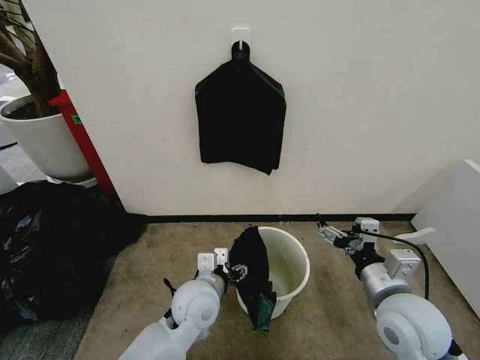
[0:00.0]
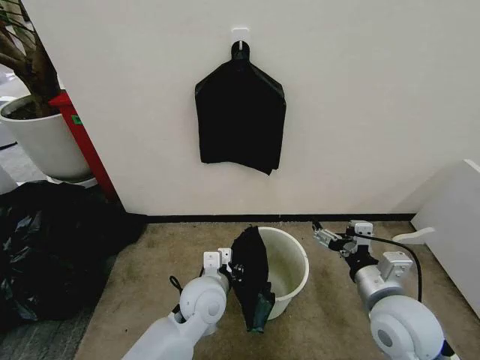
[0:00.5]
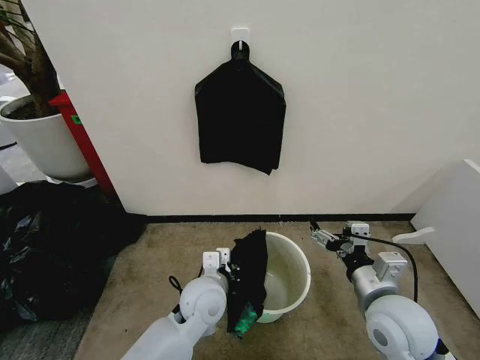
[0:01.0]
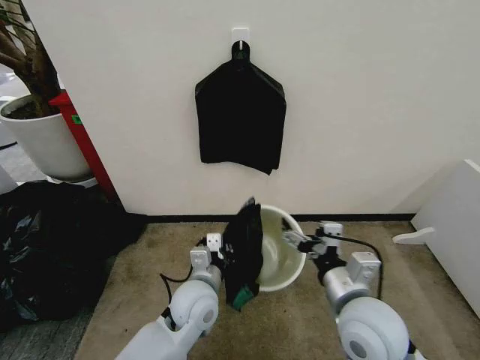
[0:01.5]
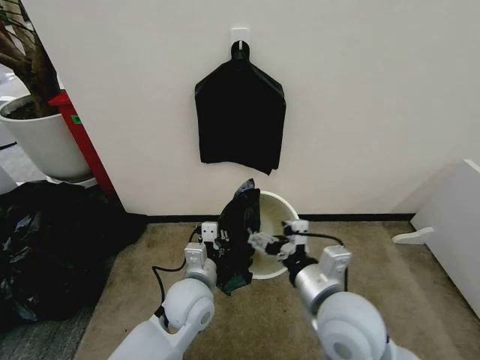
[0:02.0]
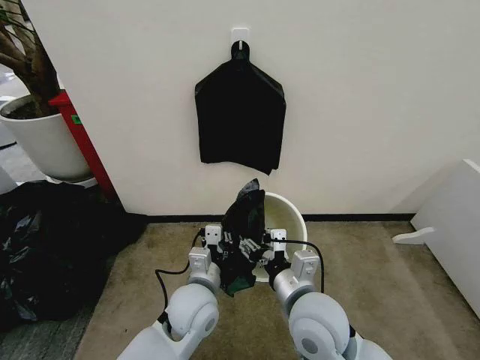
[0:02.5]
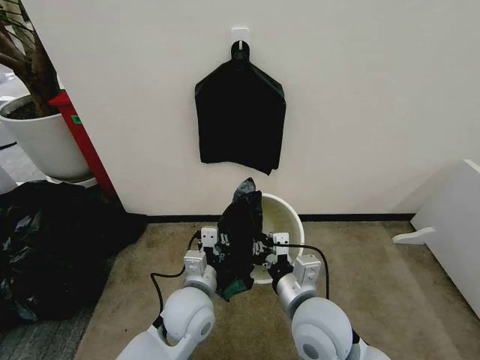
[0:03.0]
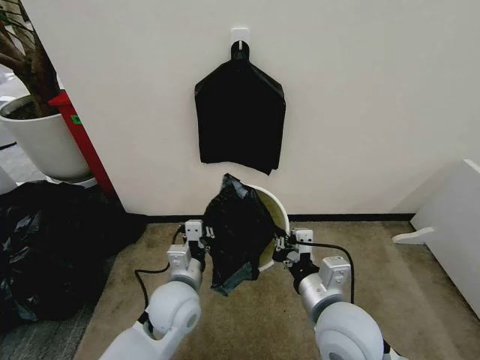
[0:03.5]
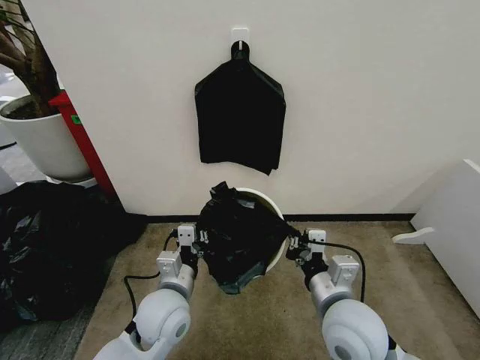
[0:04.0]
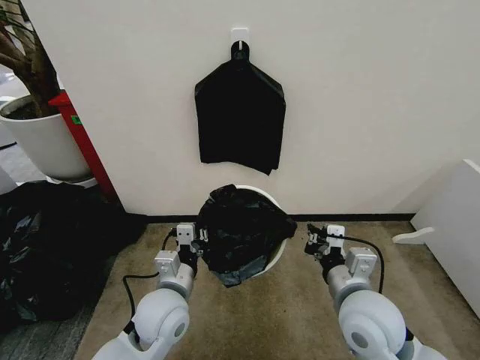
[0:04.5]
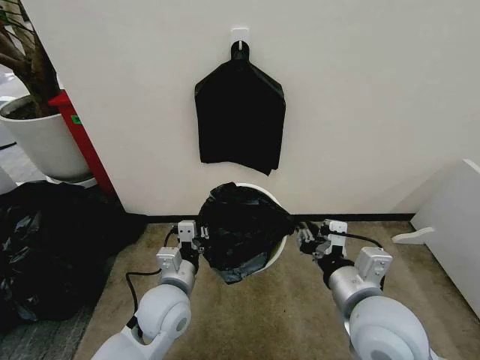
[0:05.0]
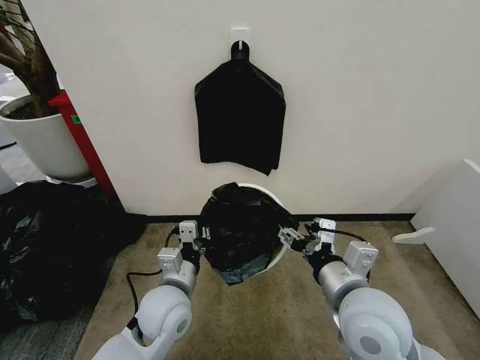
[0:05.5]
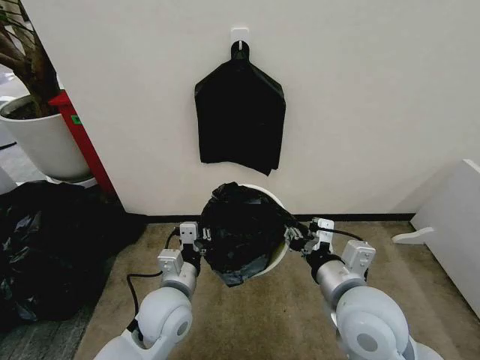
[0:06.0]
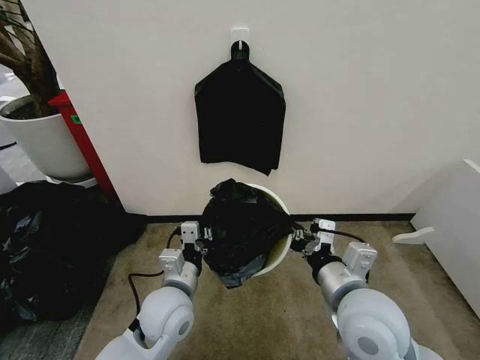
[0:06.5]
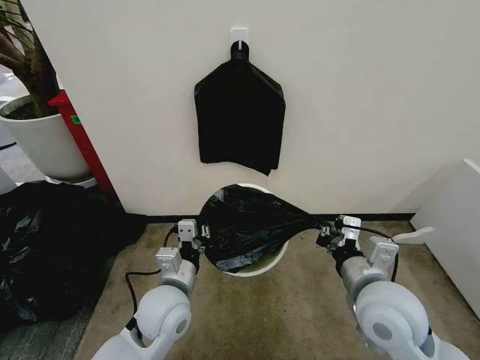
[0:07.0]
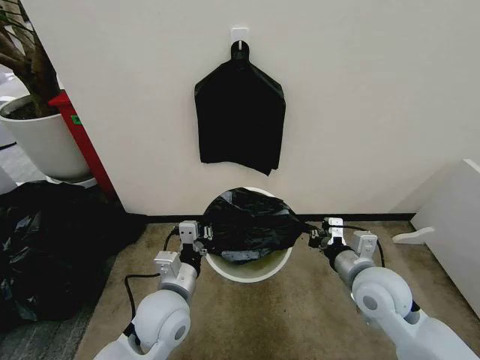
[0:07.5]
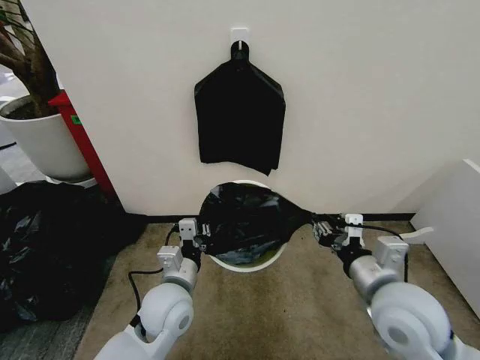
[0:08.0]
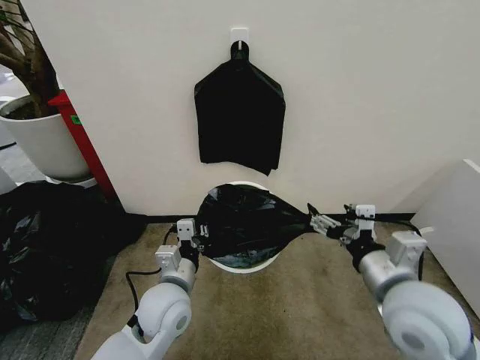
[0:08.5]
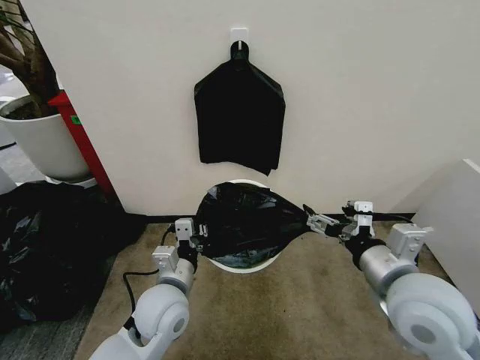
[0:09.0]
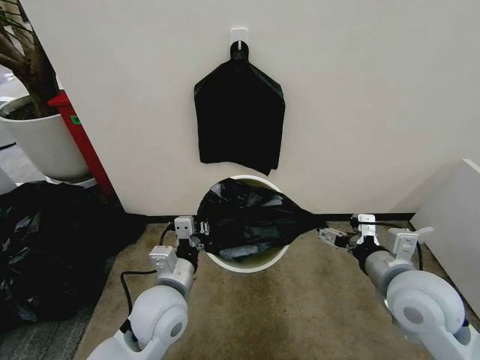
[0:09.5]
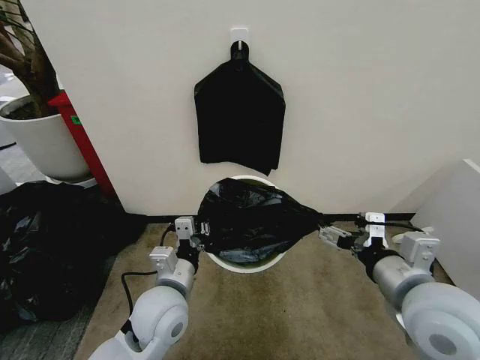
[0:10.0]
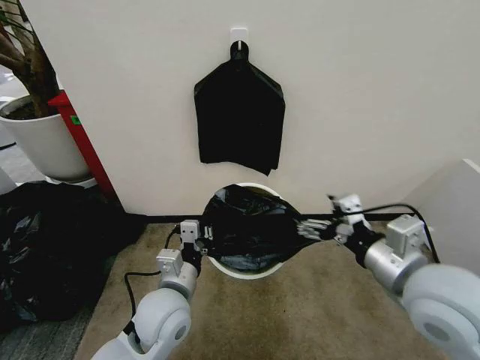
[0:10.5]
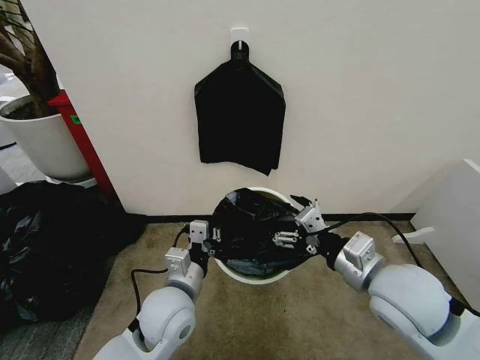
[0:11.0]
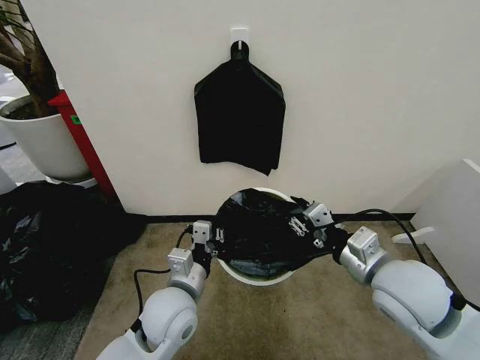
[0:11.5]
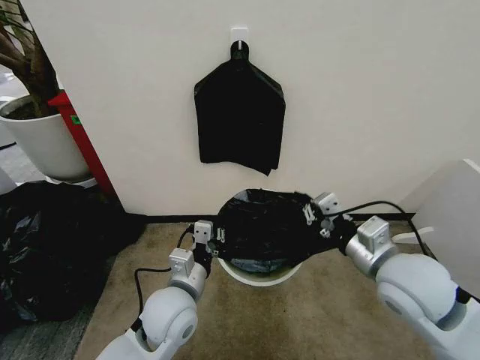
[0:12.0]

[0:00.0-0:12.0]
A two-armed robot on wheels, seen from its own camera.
Task of the whole recording: Place the garbage bag over the trash bin.
0:00.0 to 0:02.0: The left gripper closes its fingers, while the right gripper is displaced to the left by roughly 10 cm.
0:02.0 to 0:04.0: The right gripper closes up. Meanwhile the left gripper shifts by roughly 5 cm.
0:04.0 to 0:06.0: The right gripper opens, then closes once more.
0:06.0 to 0:08.0: The right gripper heads to the right, covering approximately 5 cm.
0:08.0 to 0:10.0: The right gripper moves up and down over some 5 cm, changing direction 2 times, and opens its fingers.
0:10.0 to 0:12.0: The right gripper shifts about 5 cm forward, and closes its fingers.

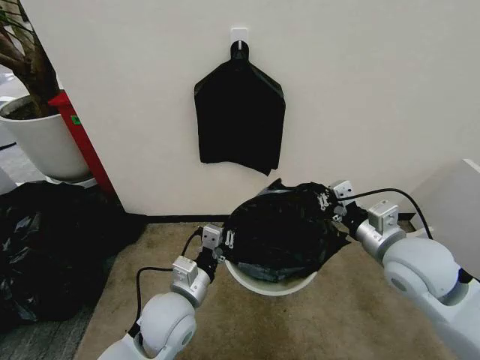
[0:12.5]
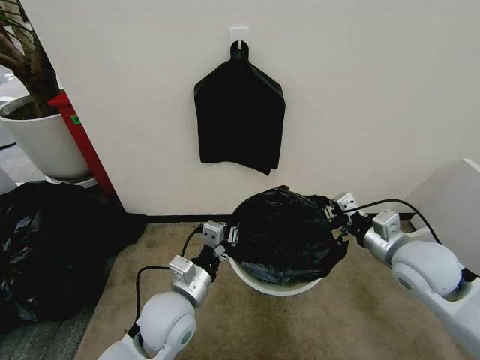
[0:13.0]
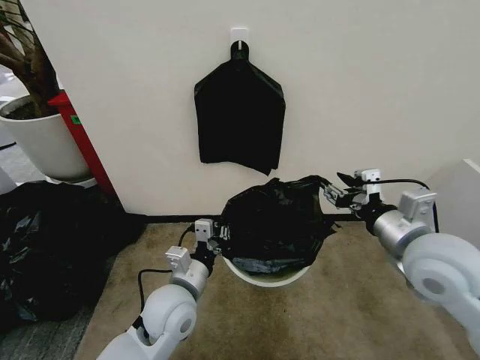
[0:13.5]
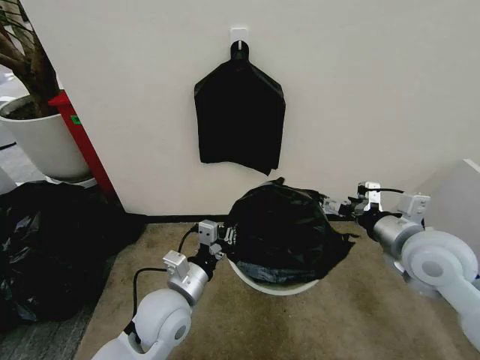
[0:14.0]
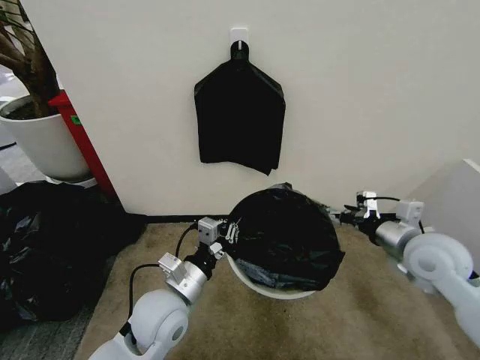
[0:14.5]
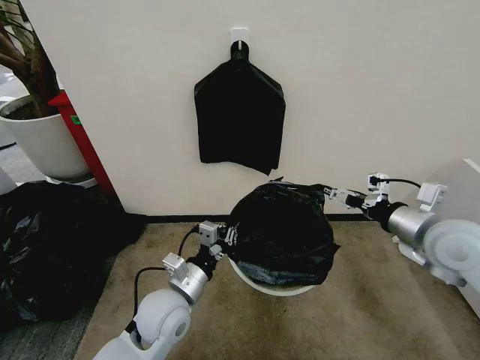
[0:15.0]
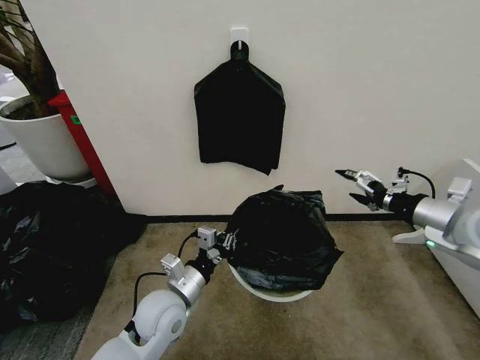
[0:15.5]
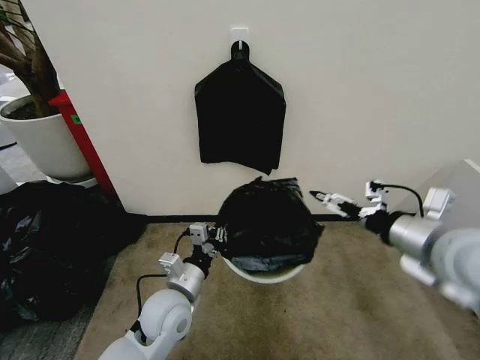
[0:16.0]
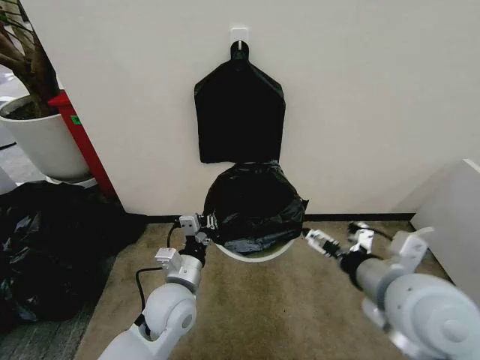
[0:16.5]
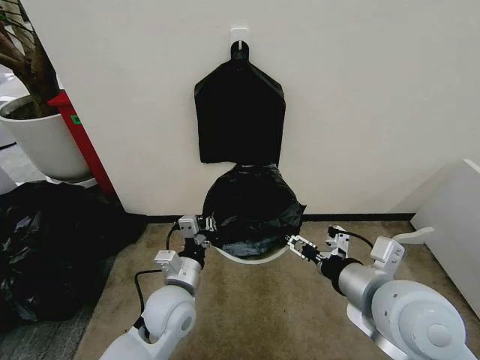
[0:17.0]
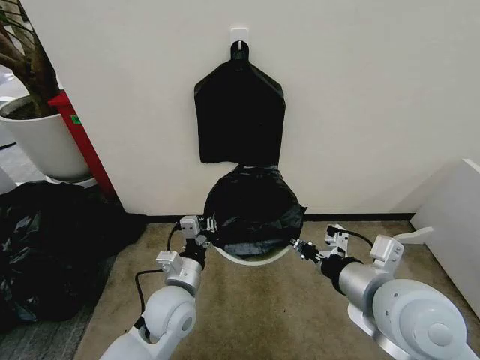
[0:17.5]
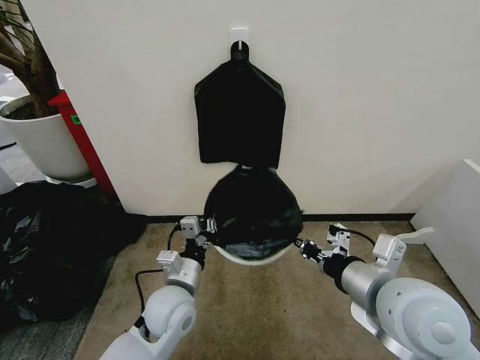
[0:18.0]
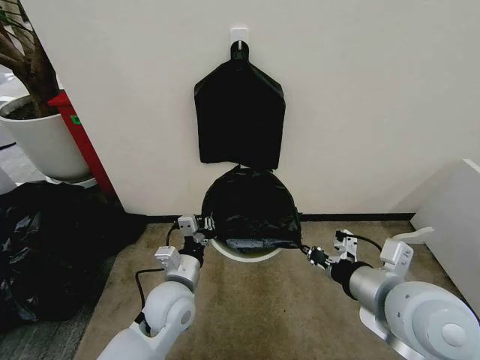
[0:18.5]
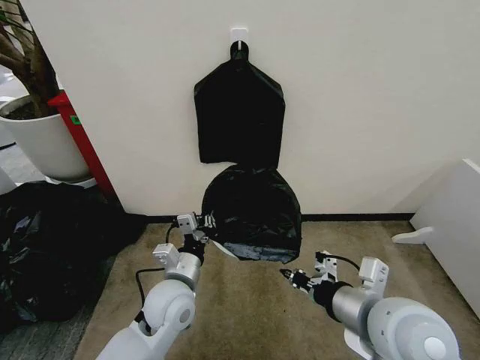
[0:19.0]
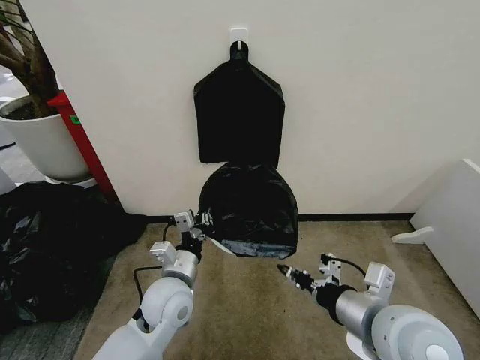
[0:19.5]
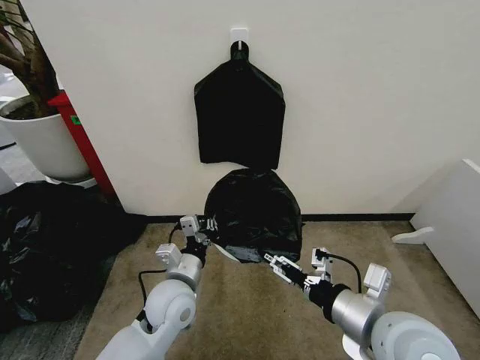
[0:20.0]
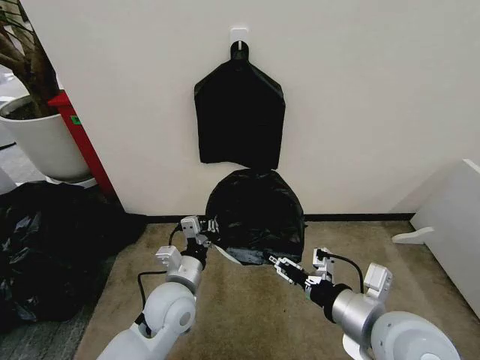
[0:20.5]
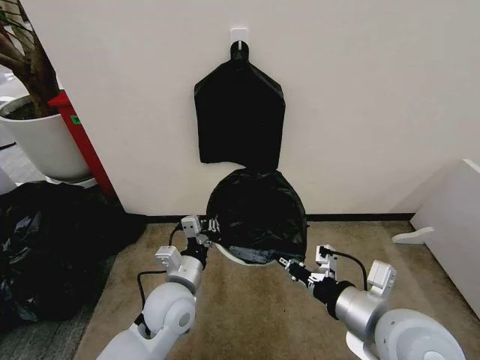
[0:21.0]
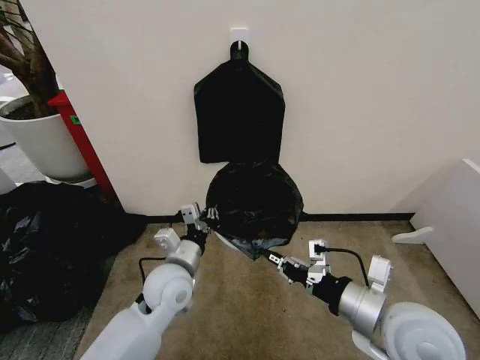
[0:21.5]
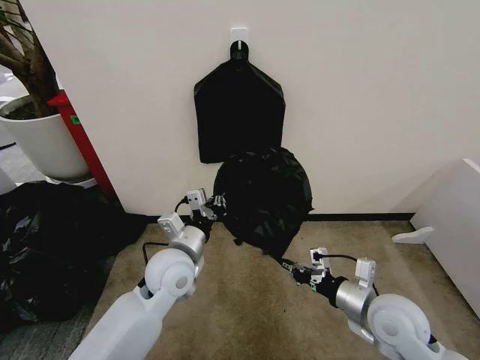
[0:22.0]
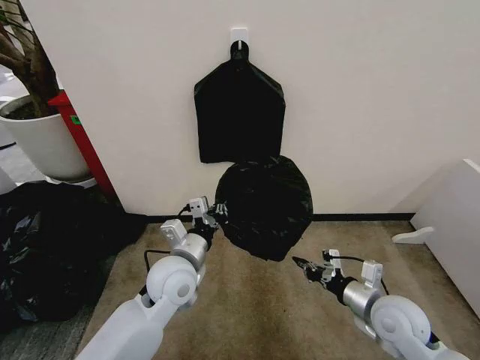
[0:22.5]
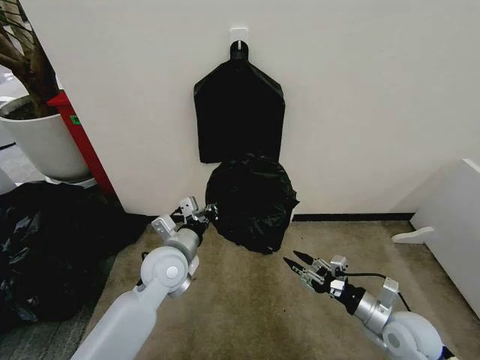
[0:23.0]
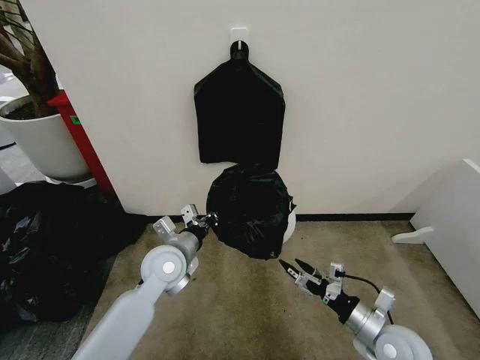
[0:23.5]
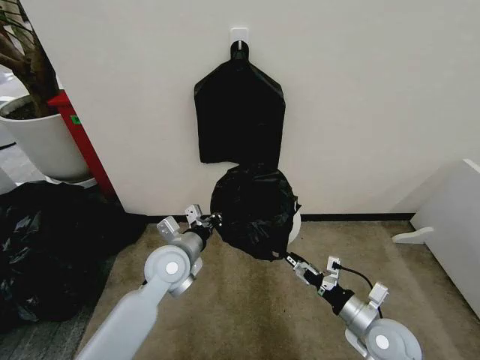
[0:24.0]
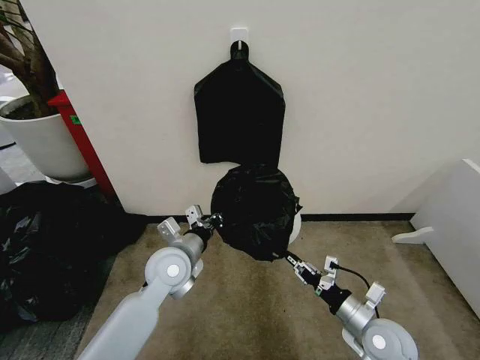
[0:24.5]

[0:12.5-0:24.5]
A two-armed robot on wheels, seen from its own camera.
Task of the whole recording: Place the garbage bag over the trash bin.
0:12.5 to 0:14.5: The right gripper swings up and down, about 10 cm each way, with 2 reversals, and opens its fingers.
0:14.5 to 0:16.5: The right gripper shifts approximately 15 cm to the left, backward and upward.
0:16.5 to 0:18.5: The right gripper closes.
0:18.5 to 0:20.5: The right gripper opens up.
0:20.5 to 0:22.5: The right gripper goes about 15 cm downward, to the right and forward, and closes up. Meanwhile the left gripper shifts by some 5 cm.
0:22.5 to 0:24.5: The right gripper moves downward, approximately 5 cm, and opens, then closes again.

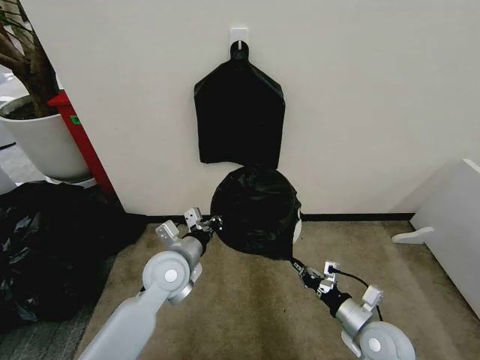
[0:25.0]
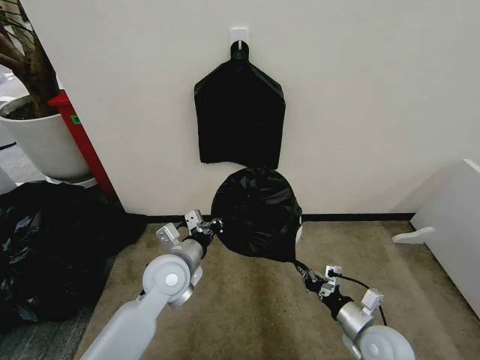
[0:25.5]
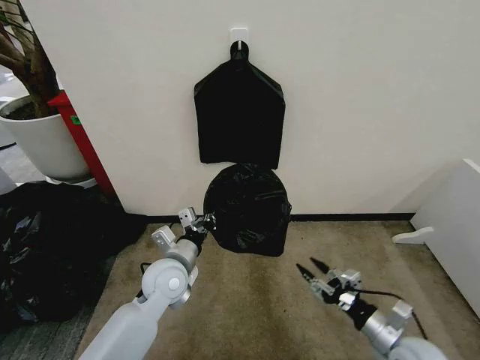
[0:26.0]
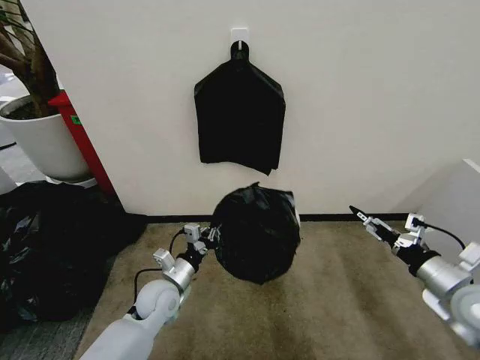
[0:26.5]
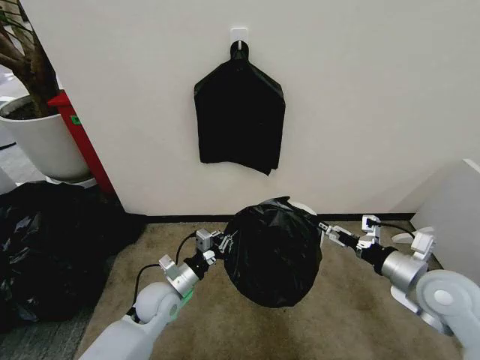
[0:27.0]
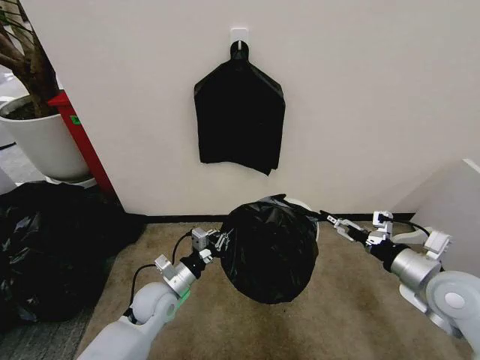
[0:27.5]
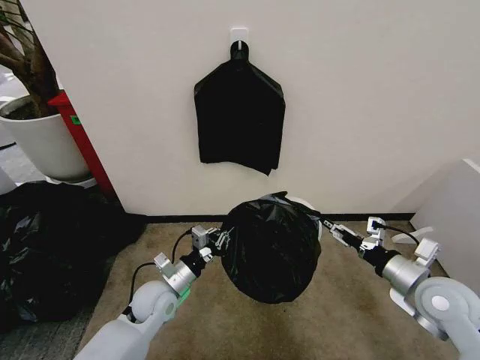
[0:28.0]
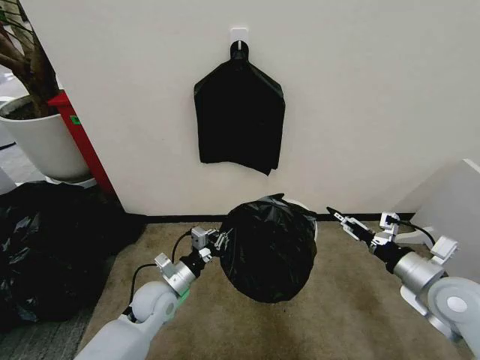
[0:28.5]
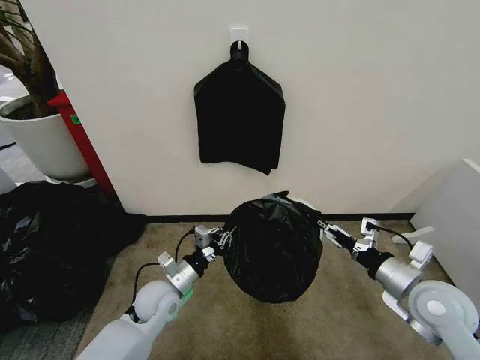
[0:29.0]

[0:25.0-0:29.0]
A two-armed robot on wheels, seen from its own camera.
Task of the whole recording: Place the garbage bag over the trash bin.
0:25.0 to 0:27.0: The left gripper is displaced downward by some 10 cm. Meanwhile the right gripper moves upward and to the right, roughly 15 cm, and opens.
0:27.0 to 0:29.0: The grippers move only a little.
